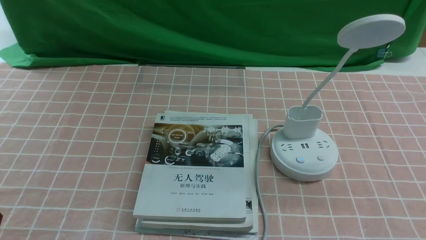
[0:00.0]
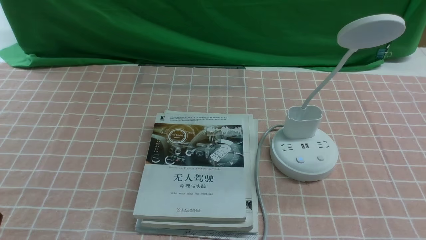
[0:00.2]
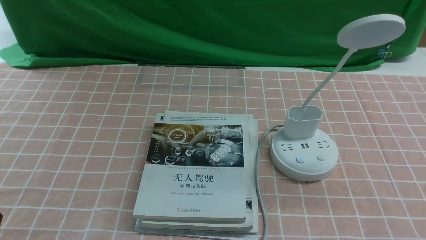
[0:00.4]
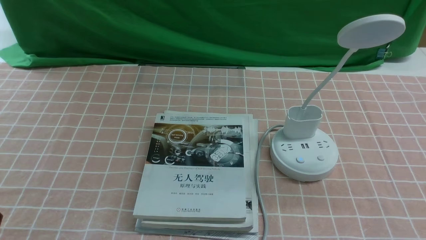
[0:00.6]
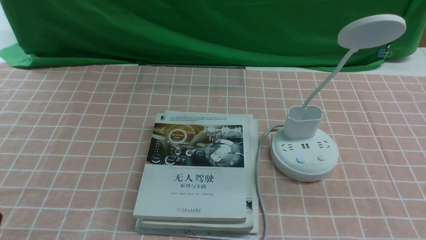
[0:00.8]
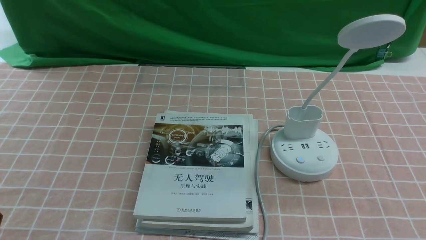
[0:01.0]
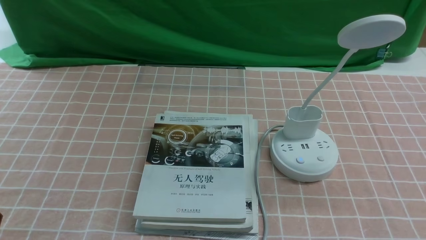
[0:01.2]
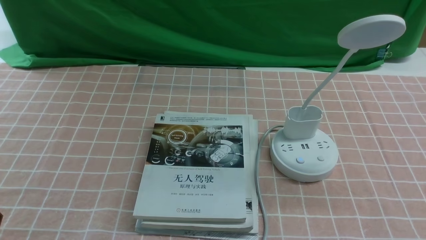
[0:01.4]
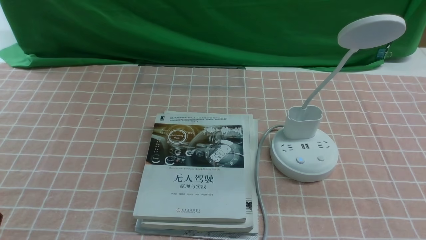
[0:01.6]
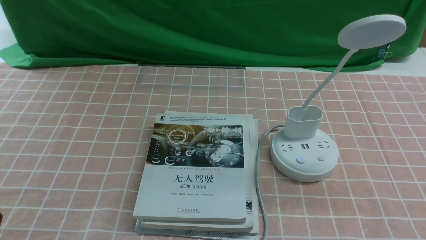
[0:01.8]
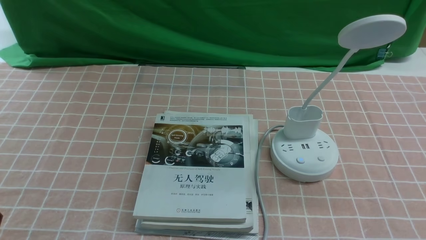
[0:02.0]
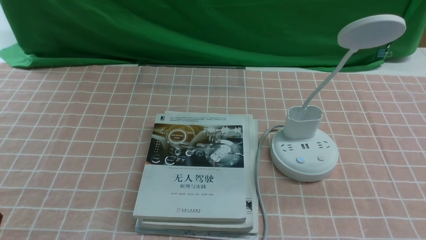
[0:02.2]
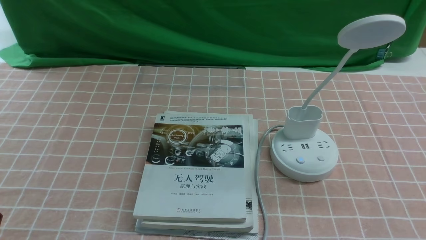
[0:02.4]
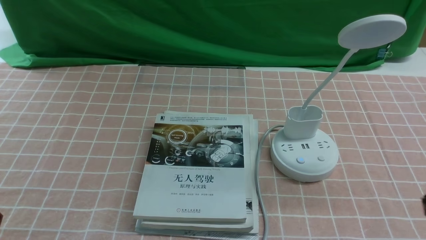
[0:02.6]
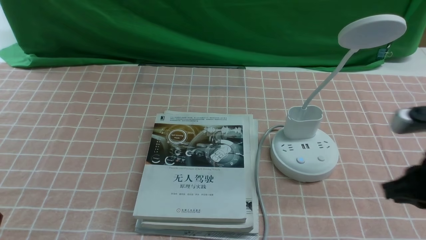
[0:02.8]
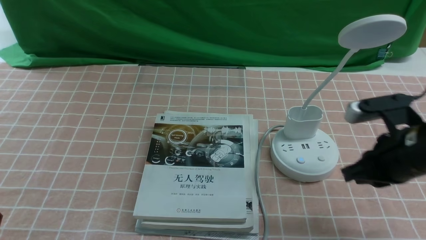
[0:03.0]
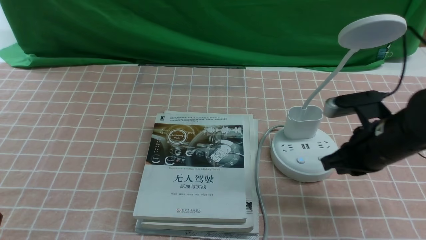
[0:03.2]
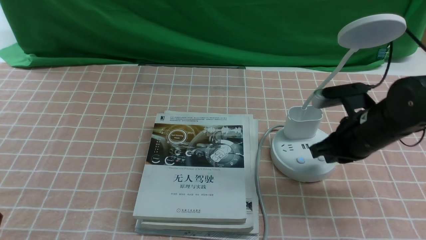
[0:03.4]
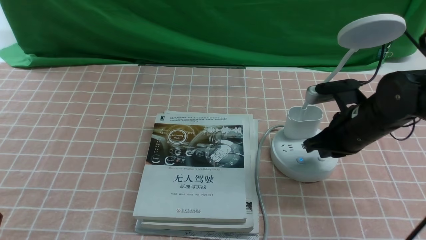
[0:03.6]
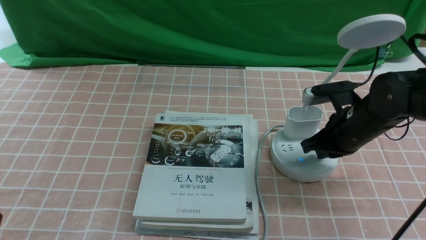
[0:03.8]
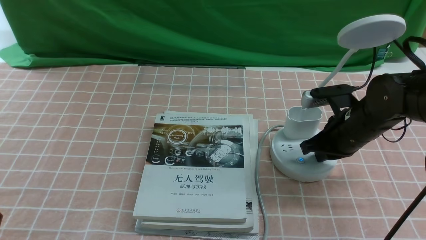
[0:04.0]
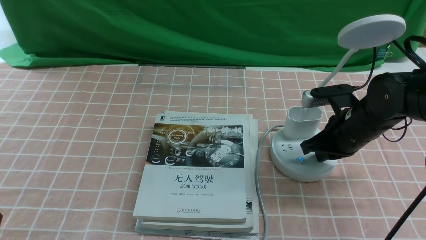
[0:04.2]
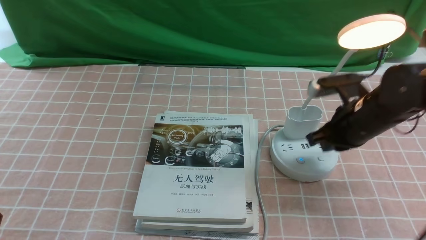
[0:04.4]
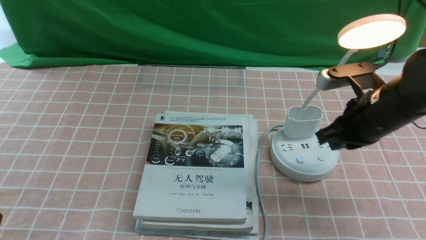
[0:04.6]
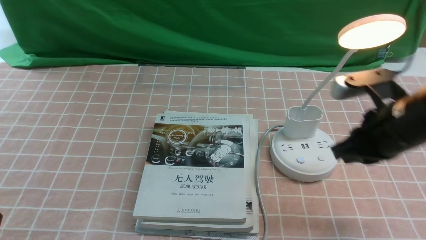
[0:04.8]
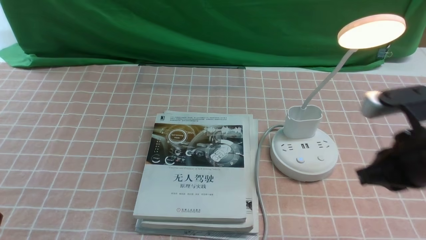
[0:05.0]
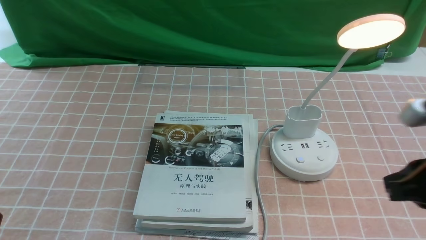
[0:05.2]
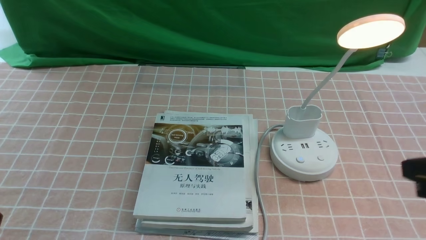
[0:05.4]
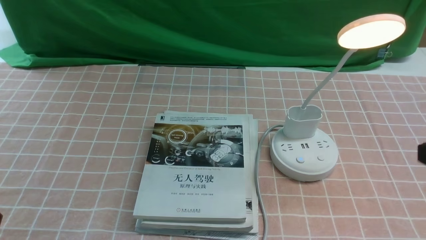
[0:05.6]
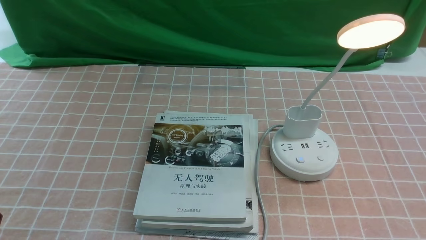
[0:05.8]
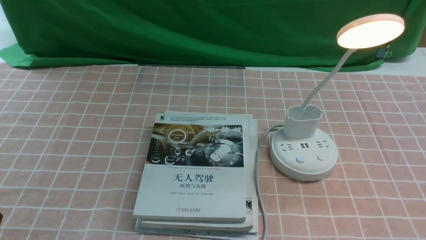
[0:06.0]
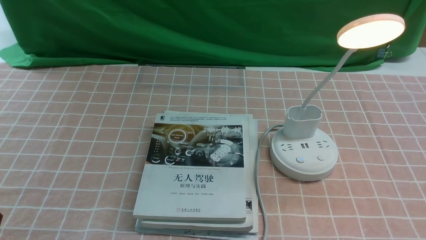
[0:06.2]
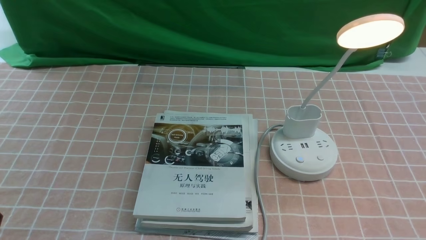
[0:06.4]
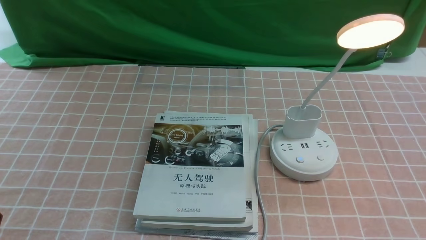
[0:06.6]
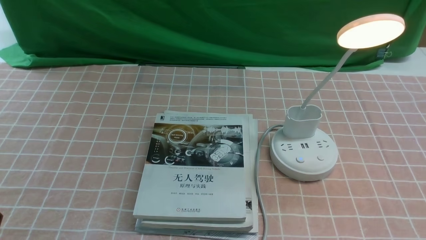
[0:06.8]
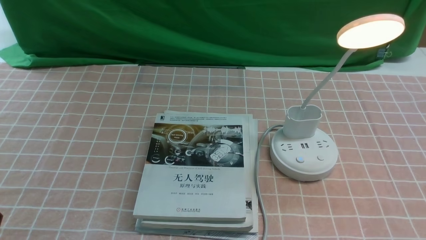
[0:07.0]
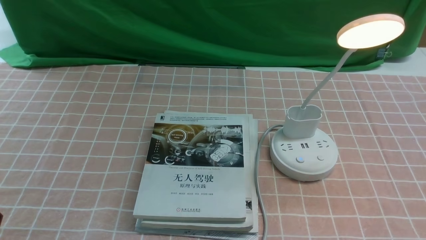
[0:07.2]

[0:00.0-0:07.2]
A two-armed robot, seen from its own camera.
Step, 0:00.0 to 0:04.4: use the right arm to press the button switch on the lamp holder.
0:01.4 to 0:02.8: The right gripper heads forward, covering about 15 cm, and closes its fingers.
0:02.8 to 0:04.4: The right gripper is displaced forward and to the left by some 15 cm.
0:04.4 to 0:05.8: The right gripper shifts some 25 cm backward.
